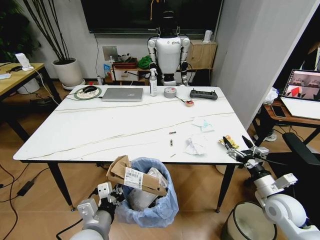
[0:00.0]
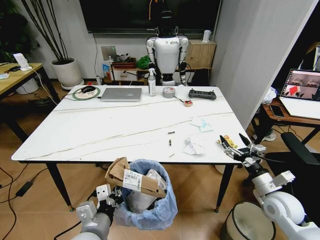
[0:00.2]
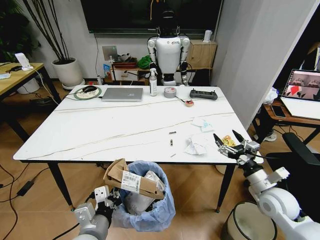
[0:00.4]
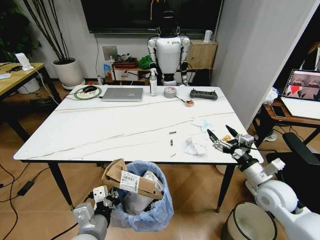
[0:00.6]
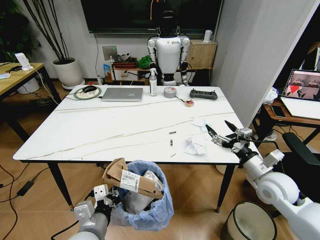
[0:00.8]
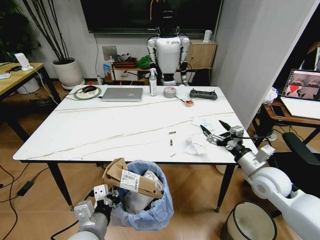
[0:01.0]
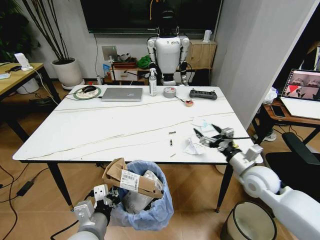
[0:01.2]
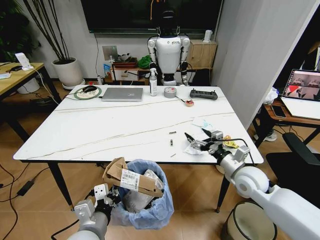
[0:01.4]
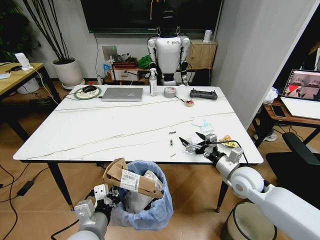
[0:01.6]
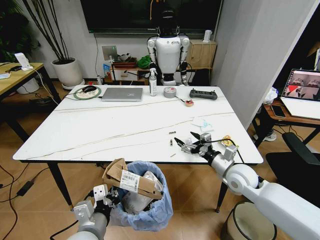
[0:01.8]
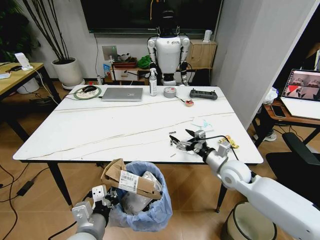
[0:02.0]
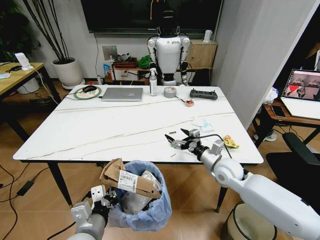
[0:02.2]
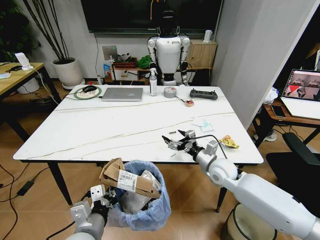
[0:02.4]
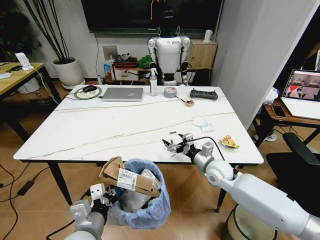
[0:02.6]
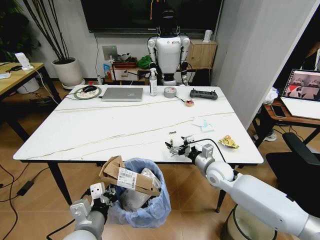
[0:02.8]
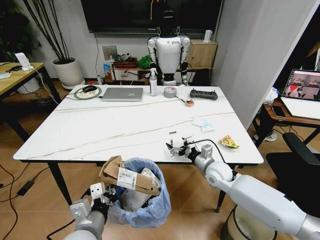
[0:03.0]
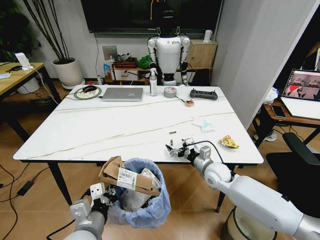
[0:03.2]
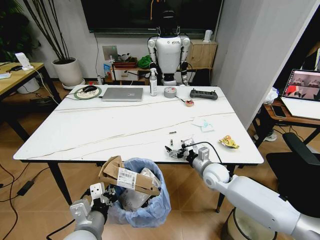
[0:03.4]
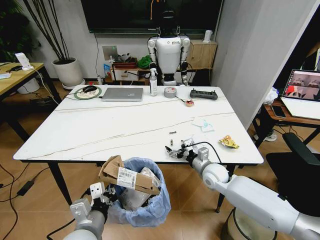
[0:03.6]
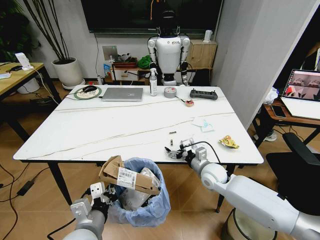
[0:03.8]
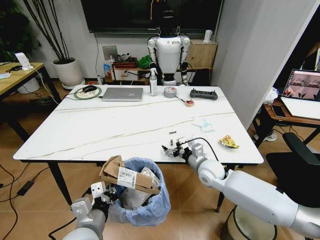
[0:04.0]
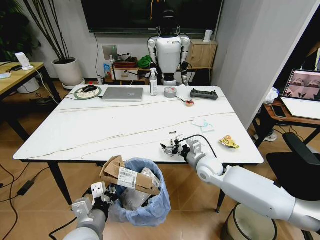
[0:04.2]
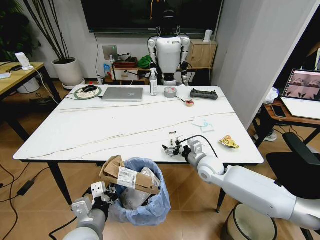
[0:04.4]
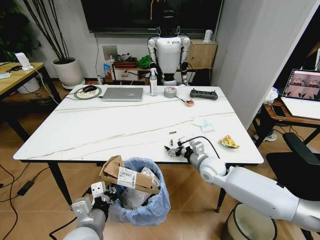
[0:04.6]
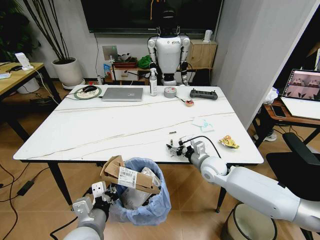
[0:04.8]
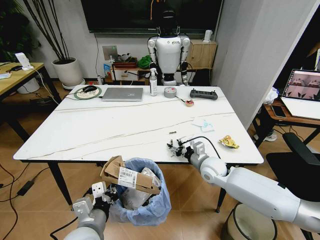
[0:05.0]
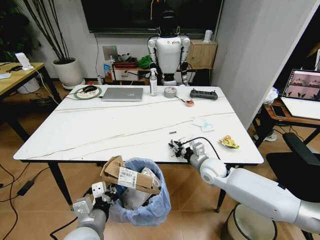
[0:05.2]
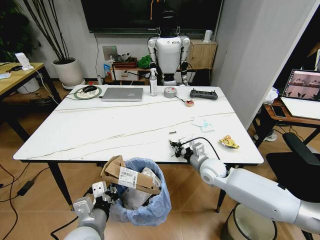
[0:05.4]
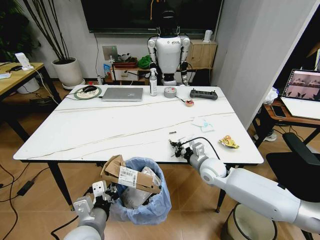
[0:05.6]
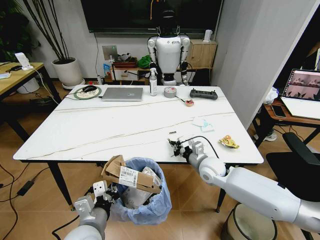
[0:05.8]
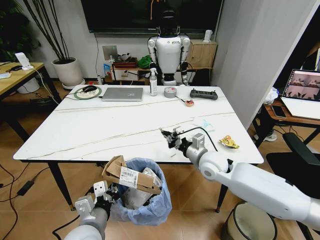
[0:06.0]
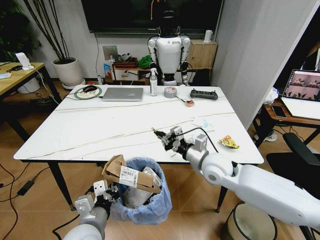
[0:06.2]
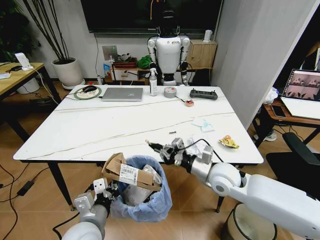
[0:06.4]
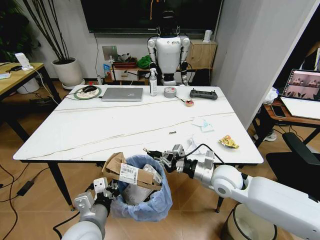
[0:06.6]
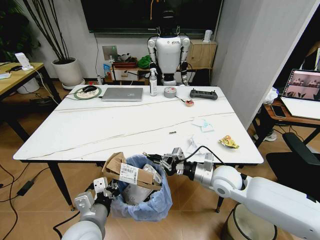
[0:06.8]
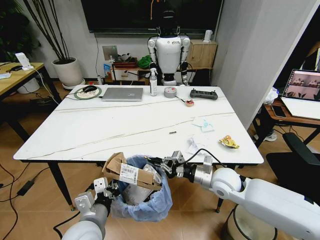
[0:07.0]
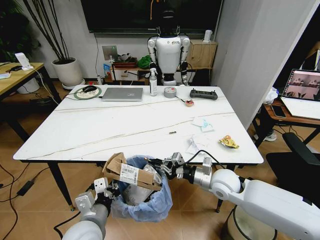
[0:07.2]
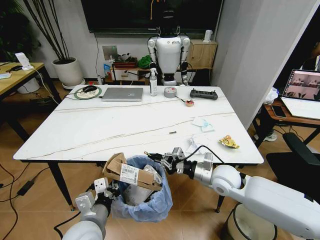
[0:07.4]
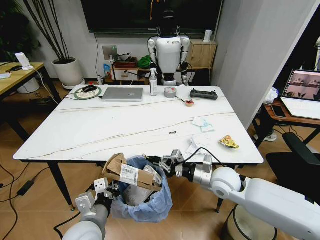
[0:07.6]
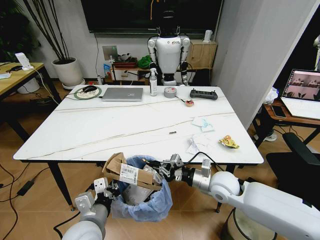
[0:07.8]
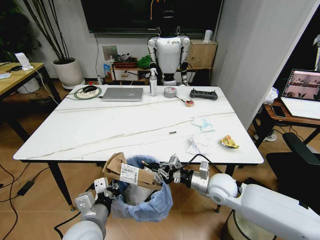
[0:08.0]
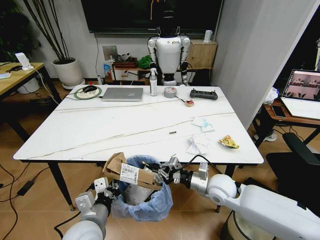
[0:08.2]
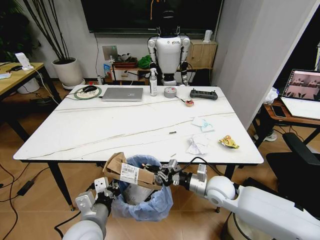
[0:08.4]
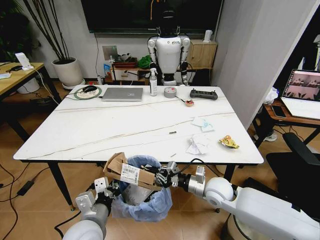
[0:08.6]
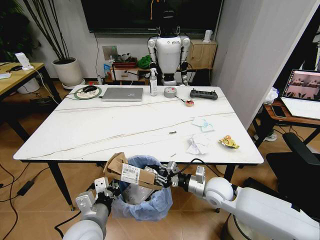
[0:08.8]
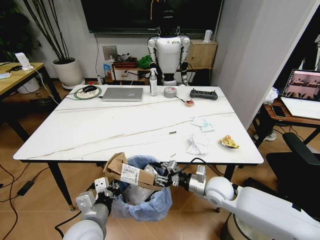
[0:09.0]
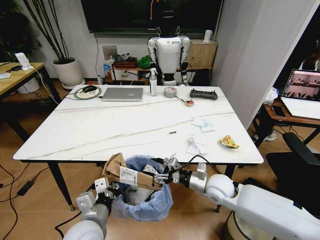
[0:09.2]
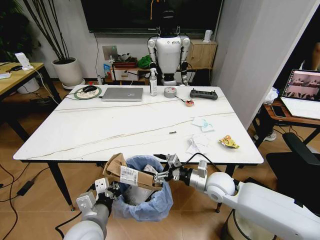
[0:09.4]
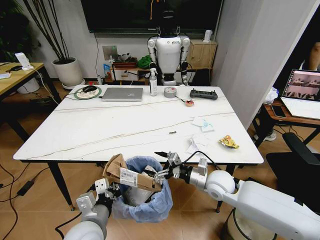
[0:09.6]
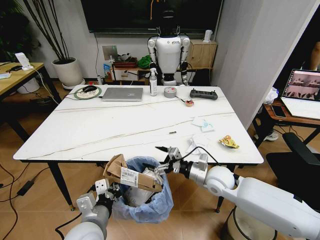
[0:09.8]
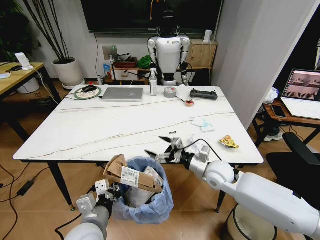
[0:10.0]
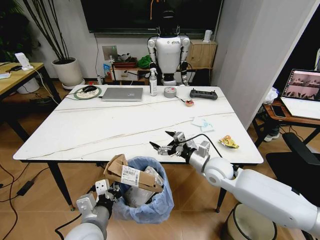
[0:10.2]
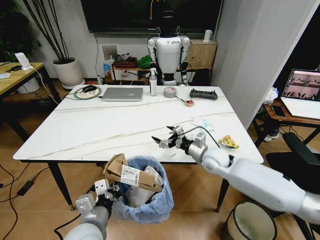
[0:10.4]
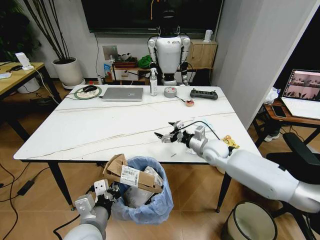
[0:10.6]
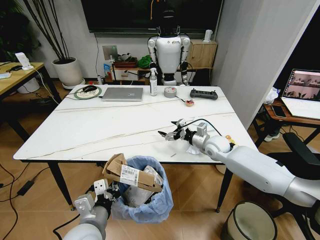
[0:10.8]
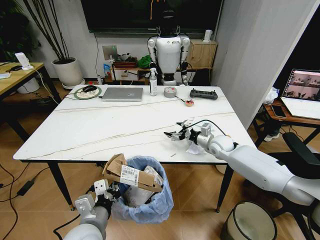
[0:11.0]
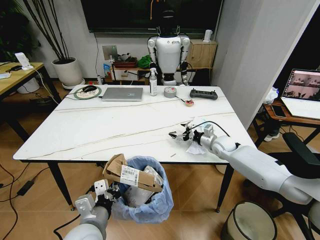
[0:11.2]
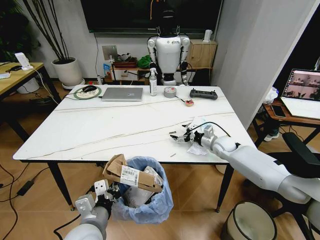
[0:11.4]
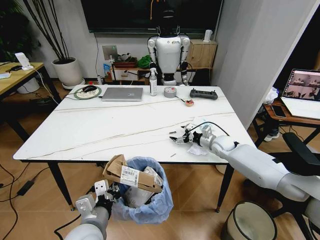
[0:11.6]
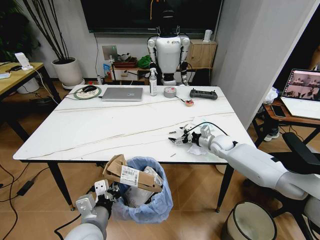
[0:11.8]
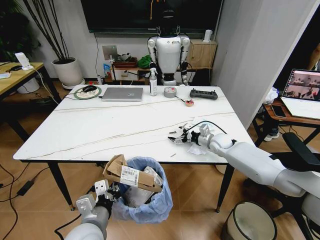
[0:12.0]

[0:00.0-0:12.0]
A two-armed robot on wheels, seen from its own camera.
Task of the whole recording: Pick up the trash bin and place the trash from the table into it.
0:00.0 to 0:01.6: The right gripper moves to the left and forward, some 15 cm.
0:01.6 to 0:03.0: The right gripper travels to the left and forward by about 10 cm.
0:03.0 to 0:04.4: There are only small adjustments of the grippers.
0:04.4 to 0:06.0: The right gripper heads upward, covering about 5 cm, and closes up.
0:06.0 to 0:07.6: The right gripper shifts approximately 5 cm backward.
0:07.6 to 0:09.0: The right gripper goes about 5 cm downward, and opens.
0:09.0 to 0:10.4: The right gripper shifts about 10 cm forward and upward, and opens up.
0:10.4 to 0:12.0: The right gripper goes some 15 cm forward and to the right.

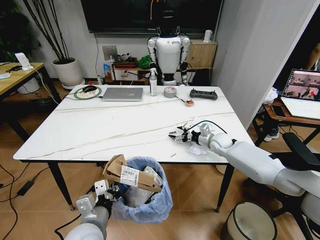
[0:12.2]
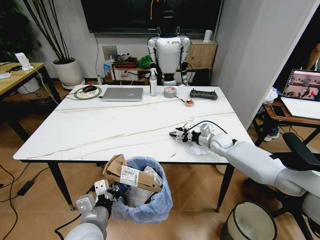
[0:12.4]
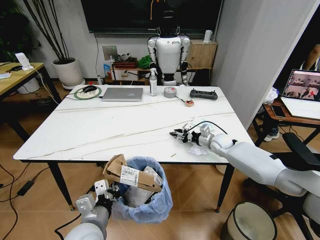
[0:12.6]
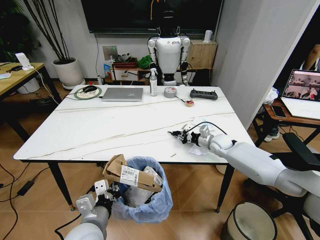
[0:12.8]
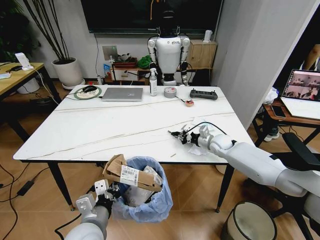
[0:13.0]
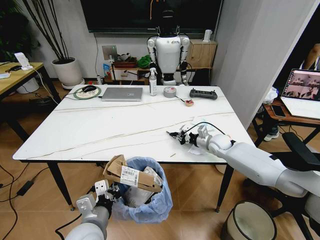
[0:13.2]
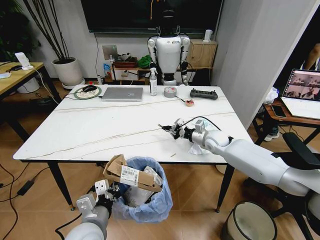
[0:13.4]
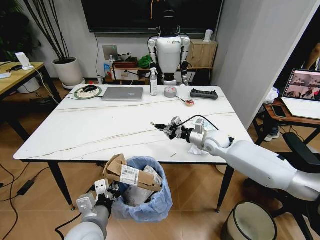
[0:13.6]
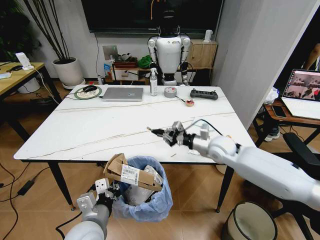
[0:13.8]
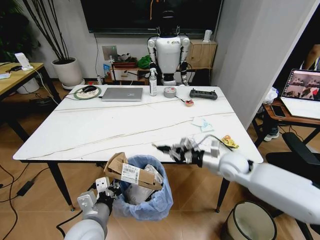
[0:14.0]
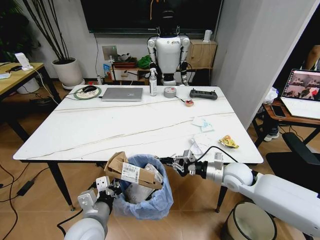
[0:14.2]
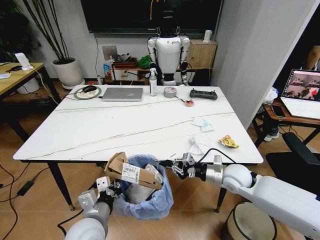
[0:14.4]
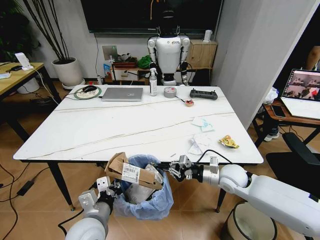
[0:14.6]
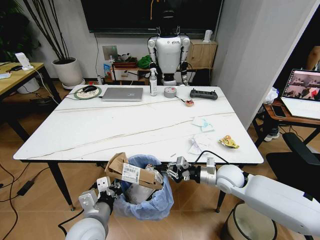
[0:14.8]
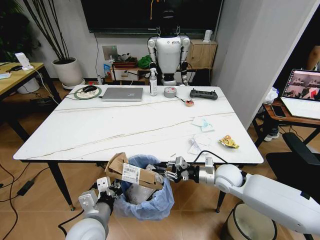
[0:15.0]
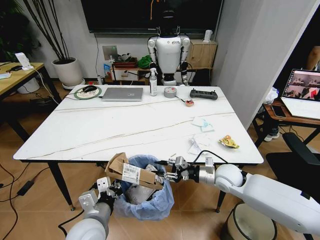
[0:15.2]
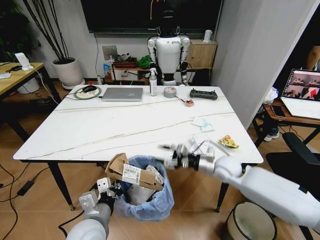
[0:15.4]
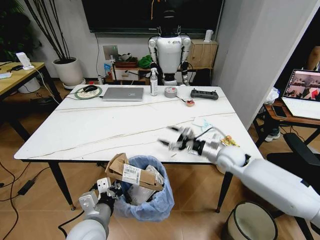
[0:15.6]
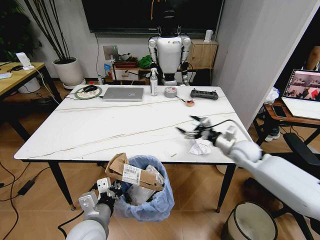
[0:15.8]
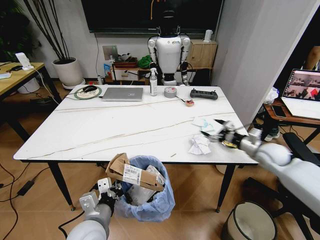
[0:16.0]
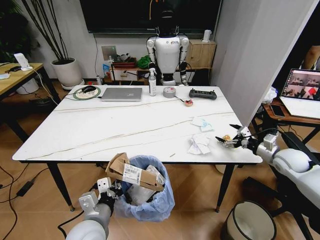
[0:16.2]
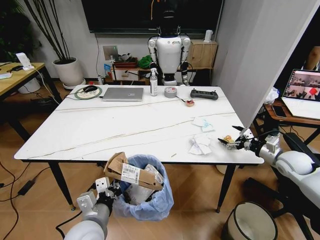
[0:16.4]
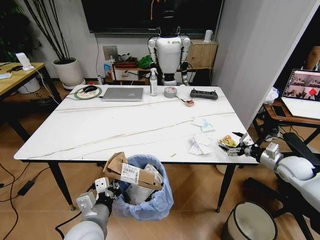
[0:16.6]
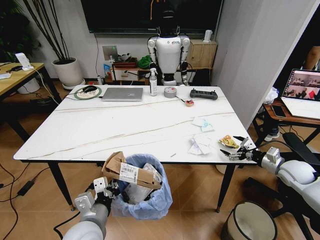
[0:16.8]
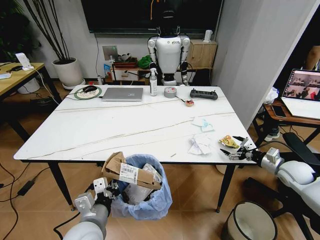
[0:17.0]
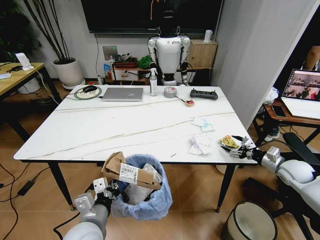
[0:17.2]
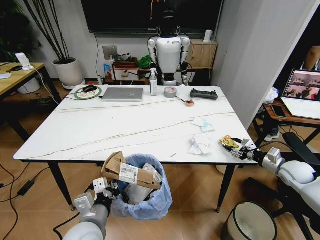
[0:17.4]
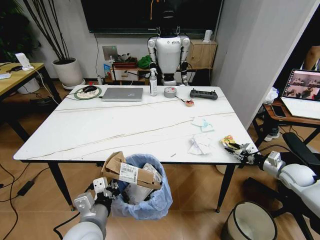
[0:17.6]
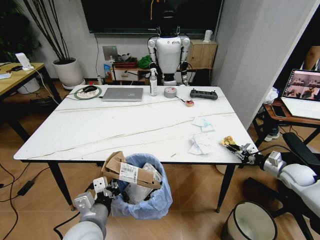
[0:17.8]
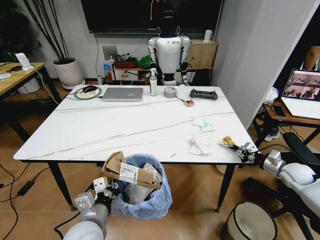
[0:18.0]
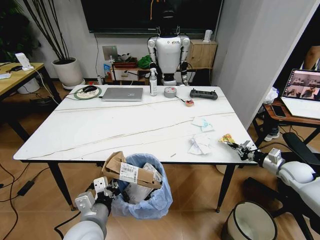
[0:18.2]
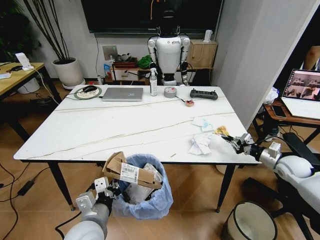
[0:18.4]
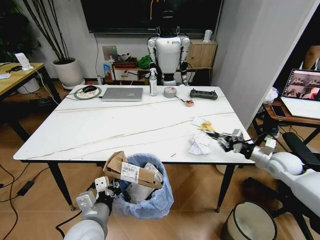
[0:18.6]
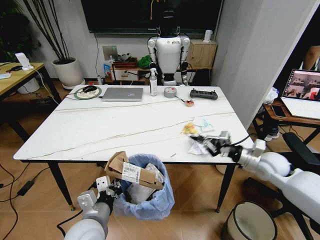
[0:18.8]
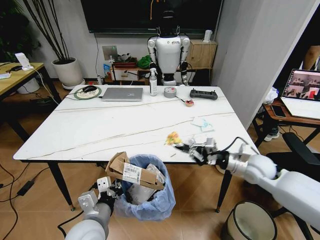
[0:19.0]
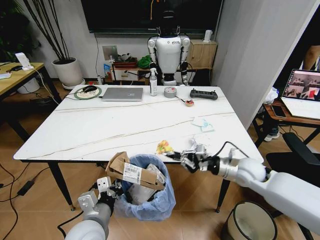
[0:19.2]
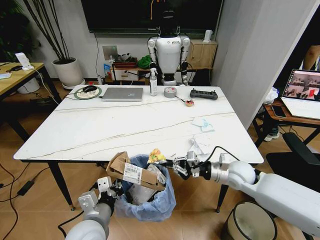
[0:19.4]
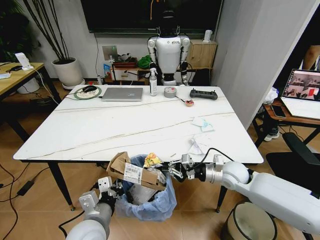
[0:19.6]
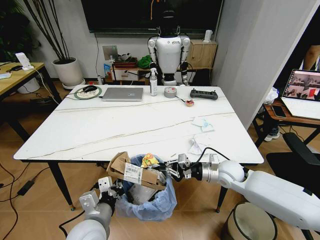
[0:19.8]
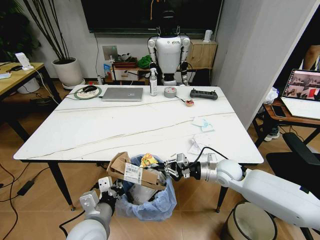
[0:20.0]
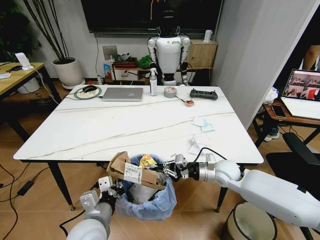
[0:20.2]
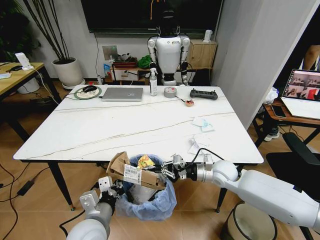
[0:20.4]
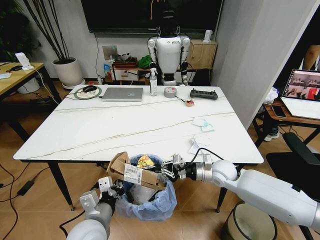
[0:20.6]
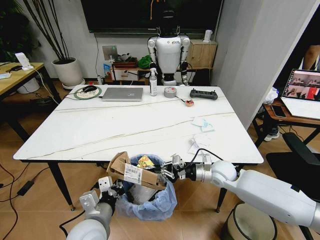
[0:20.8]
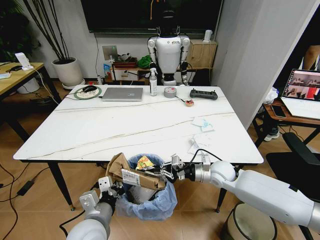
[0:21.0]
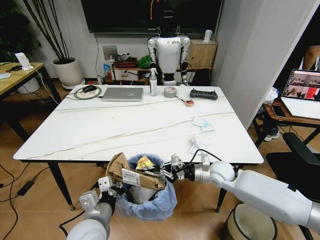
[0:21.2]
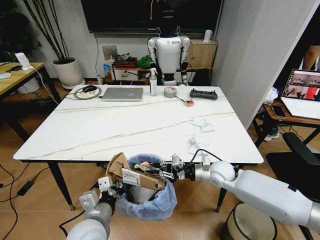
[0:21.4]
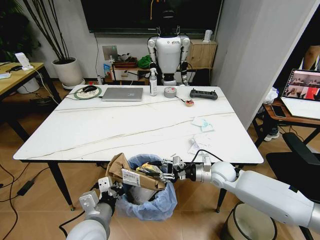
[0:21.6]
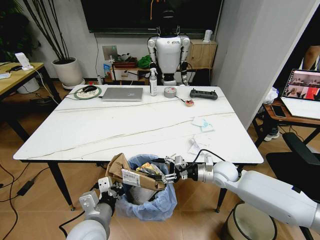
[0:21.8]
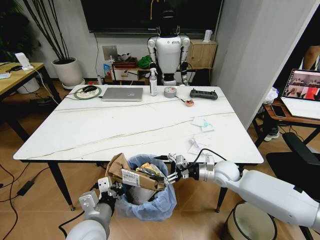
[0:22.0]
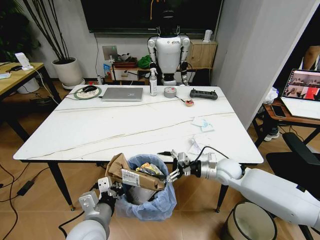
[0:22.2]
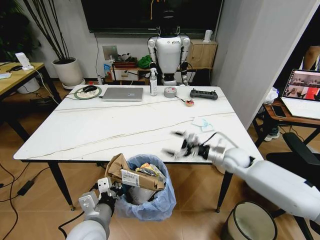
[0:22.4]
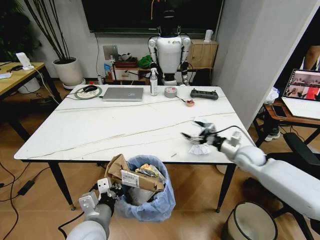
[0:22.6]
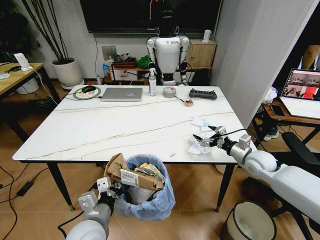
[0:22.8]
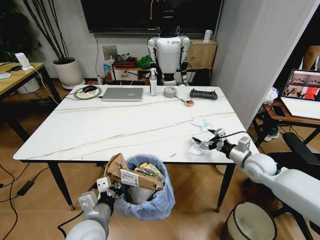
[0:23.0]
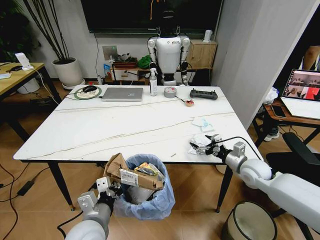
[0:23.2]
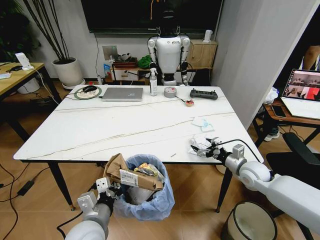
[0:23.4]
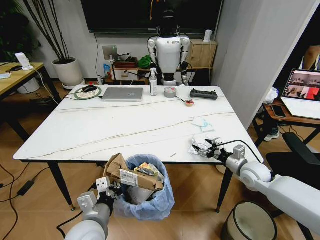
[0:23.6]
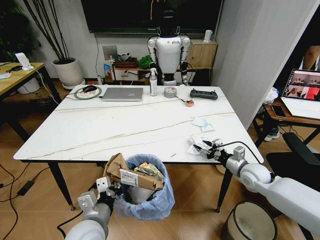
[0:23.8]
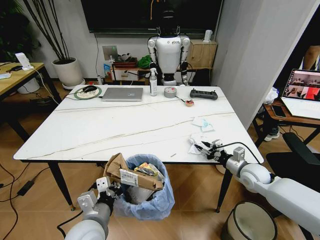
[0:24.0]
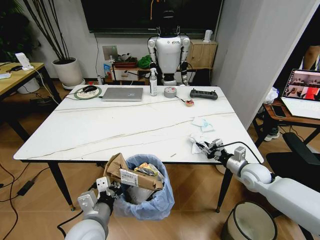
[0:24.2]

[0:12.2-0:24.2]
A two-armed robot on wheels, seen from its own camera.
Task of the whole recording: Pick up the trash bin and place the trash from the table into it.
0:12.2 to 0:13.8: The right gripper travels backward, upward and to the left by roughly 15 cm, and closes.
0:13.8 to 0:15.2: The right gripper goes approximately 10 cm downward and backward, and opens its fingers.
0:15.2 to 0:16.6: The right gripper heads to the right, covering roughly 25 cm, and opens up.
0:16.6 to 0:18.2: The right gripper closes its fingers.
0:18.2 to 0:19.8: The right gripper moves to the left, approximately 25 cm.
0:19.8 to 0:21.2: There are only small adjustments of the grippers.
0:21.2 to 0:22.6: The right gripper shifts approximately 10 cm to the right, and opens up.
0:22.6 to 0:24.2: The right gripper heads backward, covering about 5 cm, and closes up.
